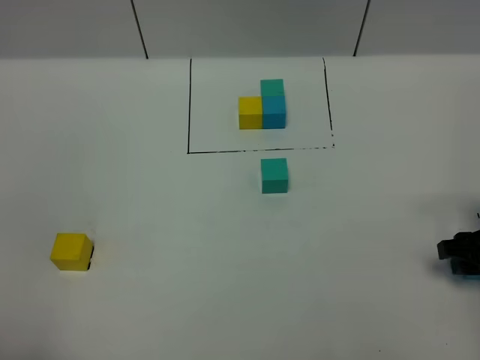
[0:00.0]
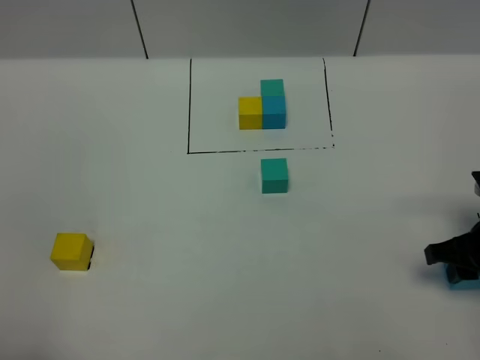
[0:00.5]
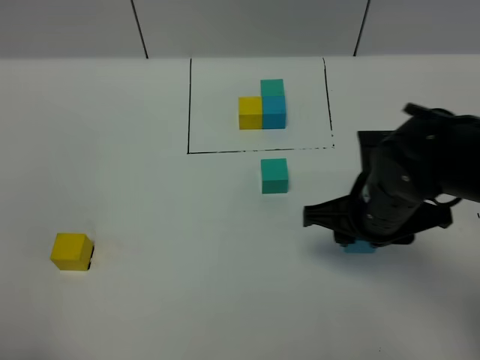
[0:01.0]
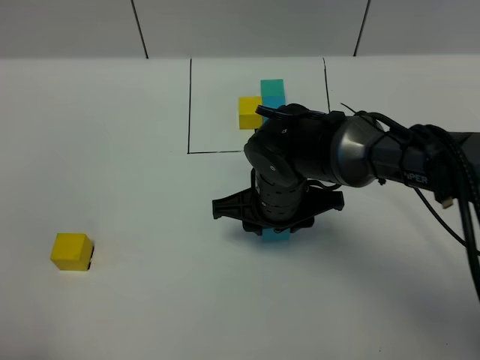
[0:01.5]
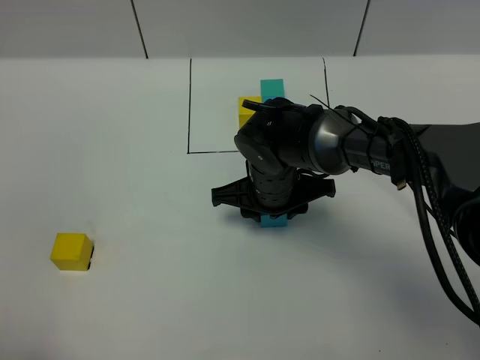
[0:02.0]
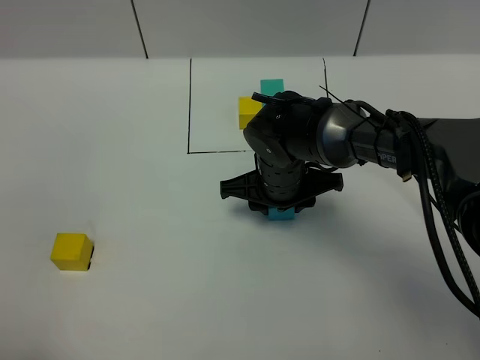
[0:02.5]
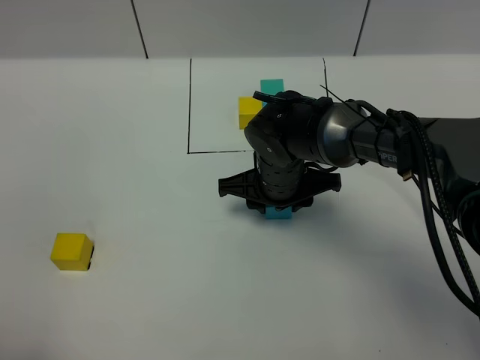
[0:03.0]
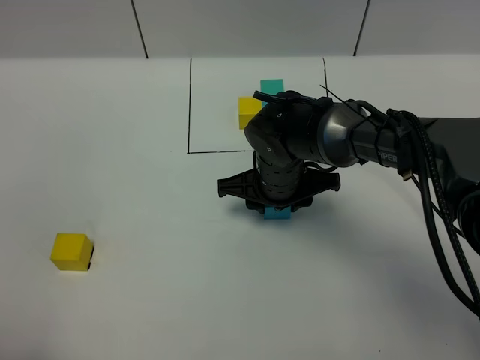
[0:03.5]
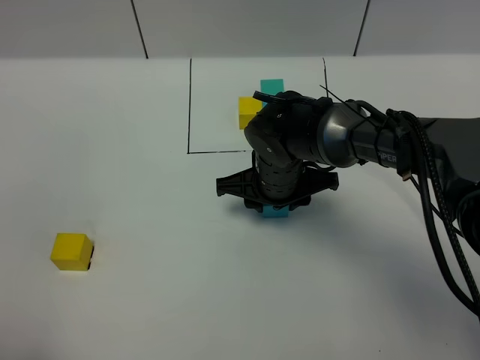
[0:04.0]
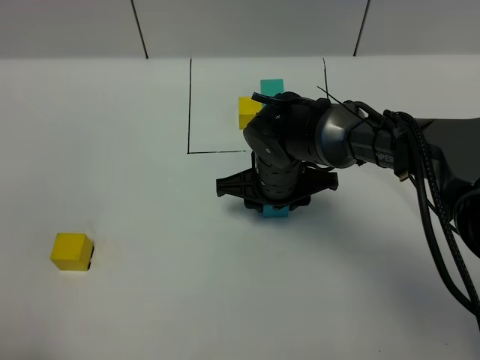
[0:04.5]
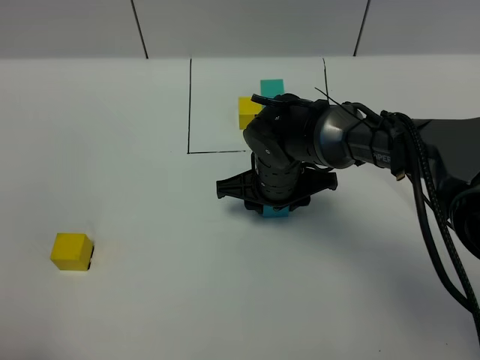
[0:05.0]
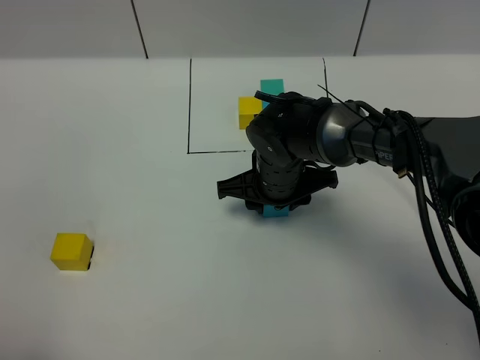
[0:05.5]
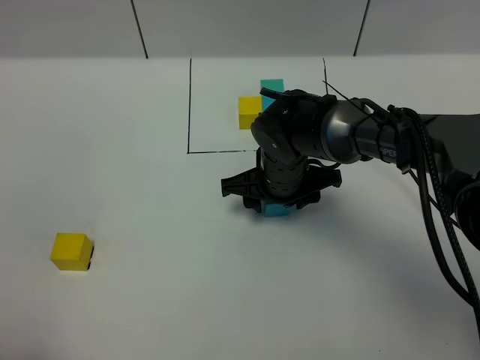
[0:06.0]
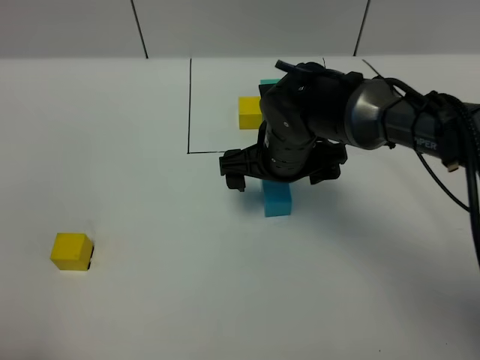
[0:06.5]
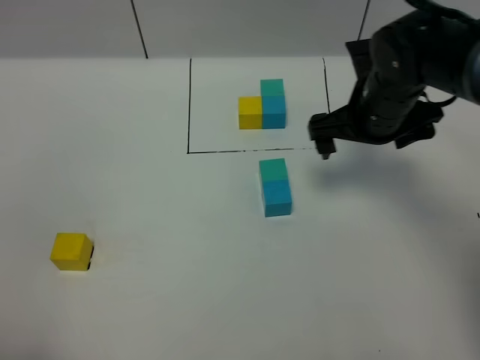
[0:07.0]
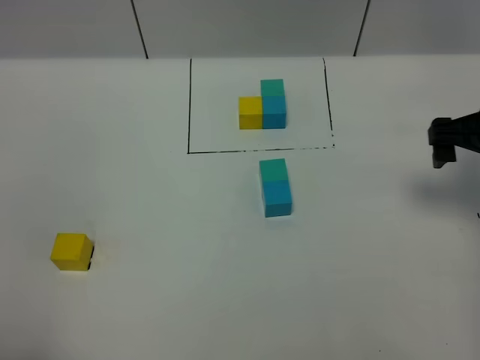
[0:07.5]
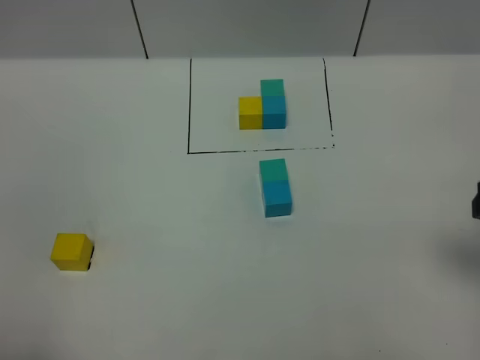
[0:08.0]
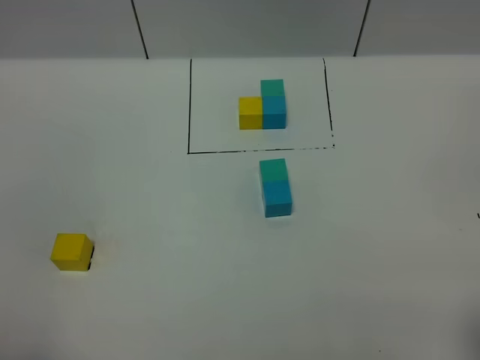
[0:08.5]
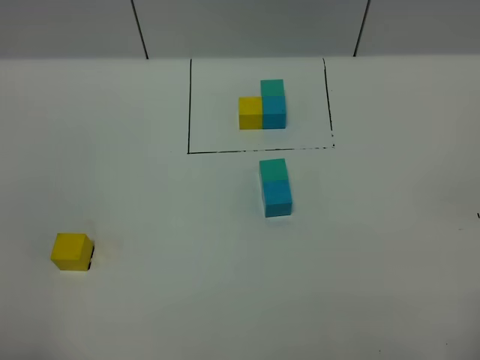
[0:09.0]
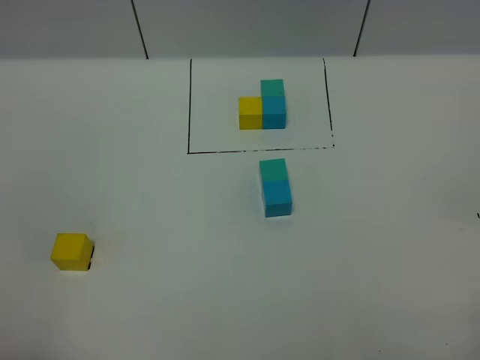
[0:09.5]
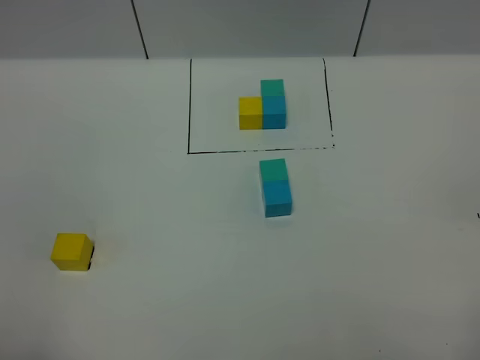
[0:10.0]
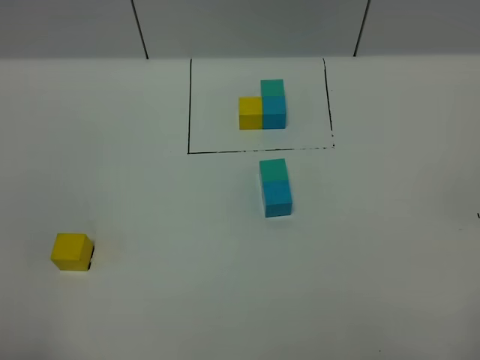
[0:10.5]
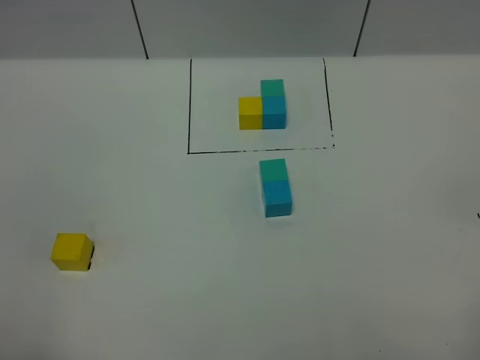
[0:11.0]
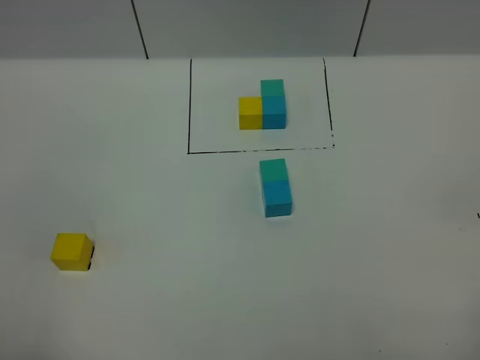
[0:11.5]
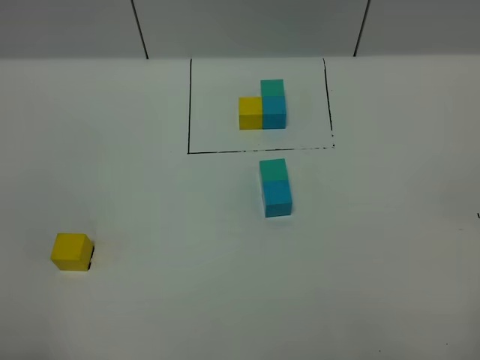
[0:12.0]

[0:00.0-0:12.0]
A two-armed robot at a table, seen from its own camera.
Task of the whole recording: According to the building block template in front, assemble the scattered blocks together.
Step, 0.0 to 6.0 s: Put the blue build block on the behind of the green build block.
0.0 to 2.0 s: The right gripper heads to the left, covering some 30 cm.
2.0 to 4.0 s: The two grippers keep their place.
4.0 to 6.0 s: Both grippers stay put.
6.0 to 8.0 s: The right gripper shifts roughly 35 cm to the right, backward and upward, and opens.
8.0 to 10.0 s: The right gripper travels backward by roughly 20 cm.
10.0 to 12.0 s: The two grippers keep their place.

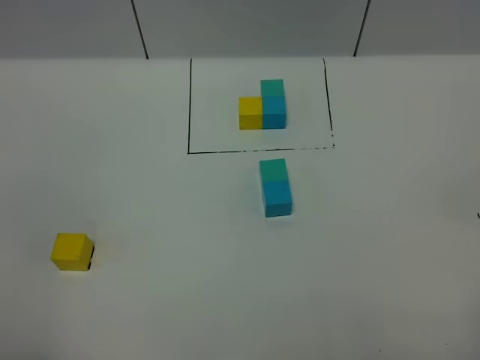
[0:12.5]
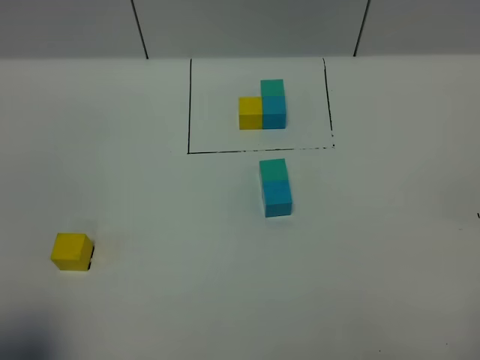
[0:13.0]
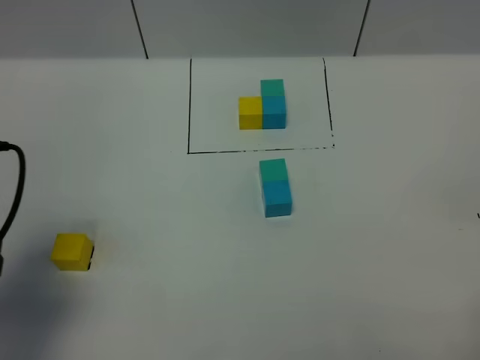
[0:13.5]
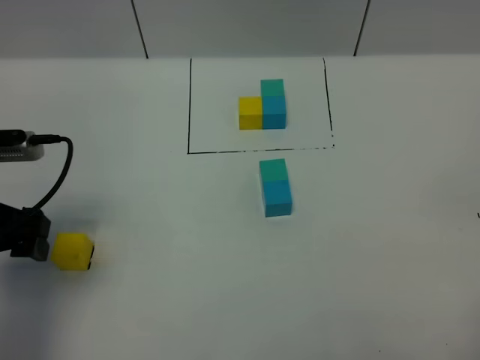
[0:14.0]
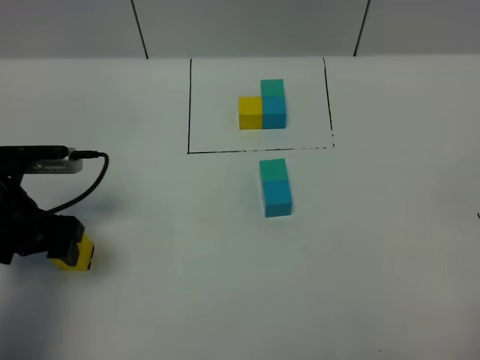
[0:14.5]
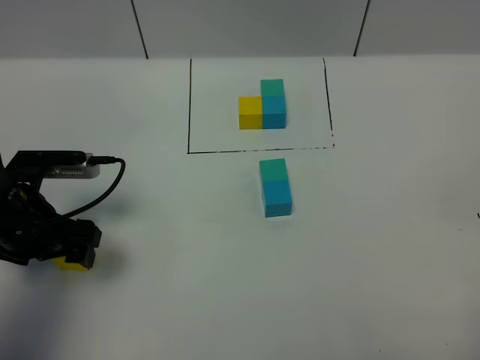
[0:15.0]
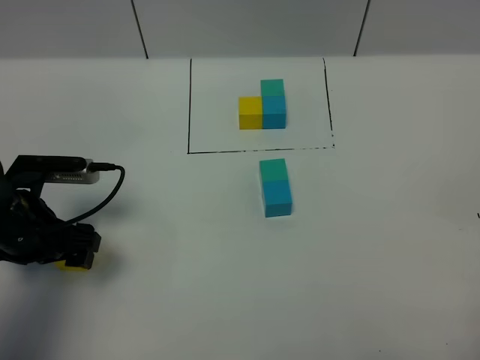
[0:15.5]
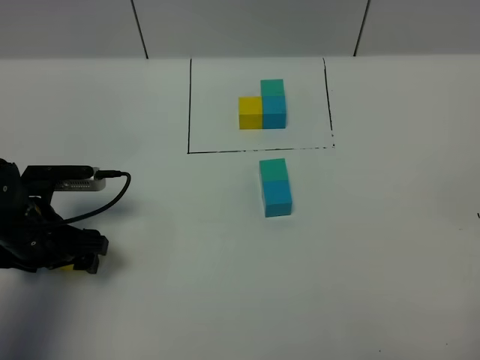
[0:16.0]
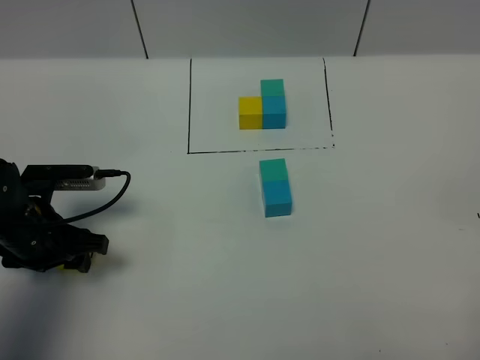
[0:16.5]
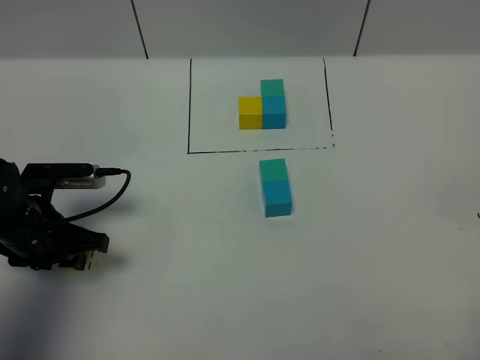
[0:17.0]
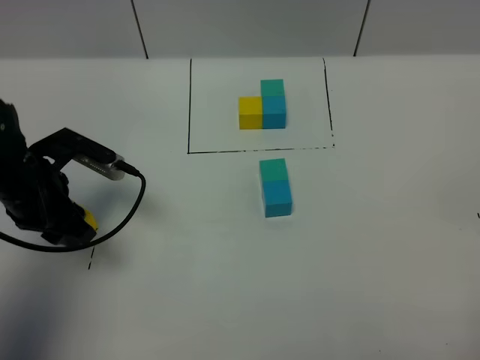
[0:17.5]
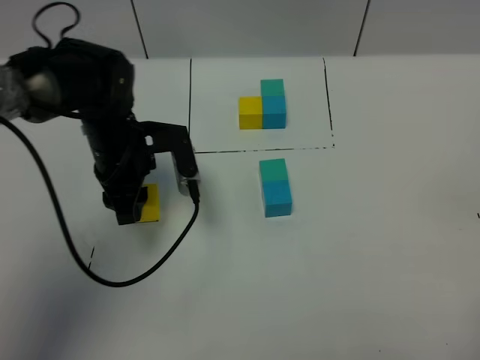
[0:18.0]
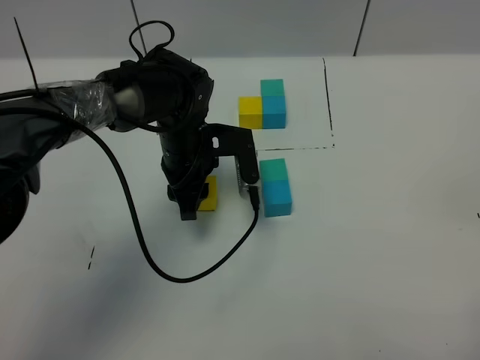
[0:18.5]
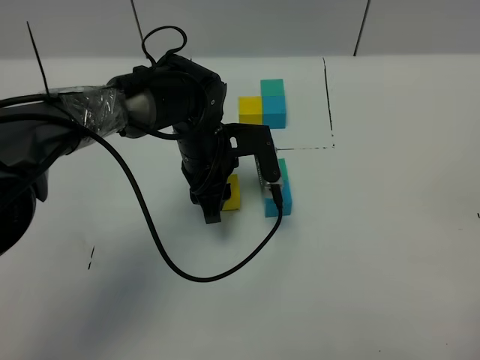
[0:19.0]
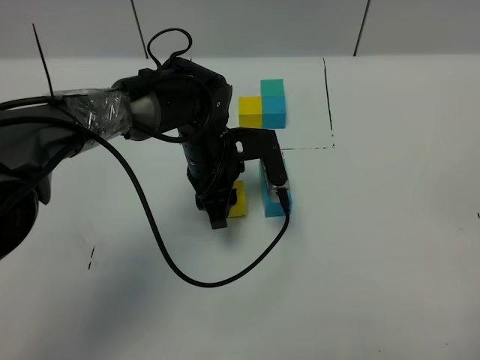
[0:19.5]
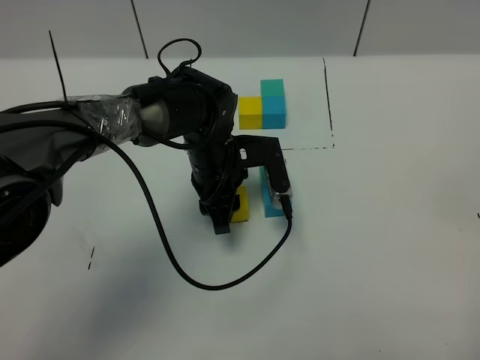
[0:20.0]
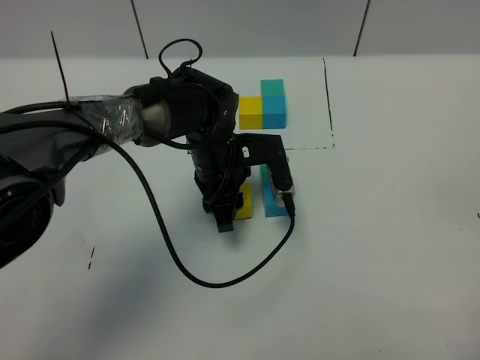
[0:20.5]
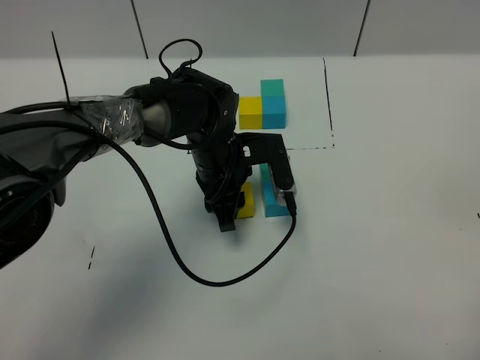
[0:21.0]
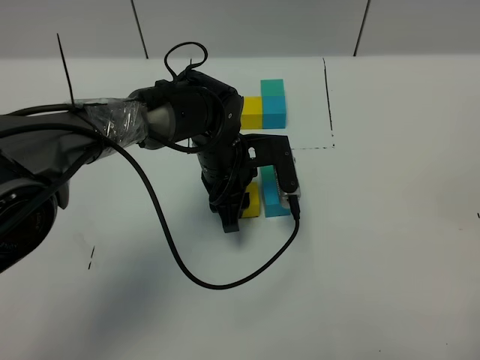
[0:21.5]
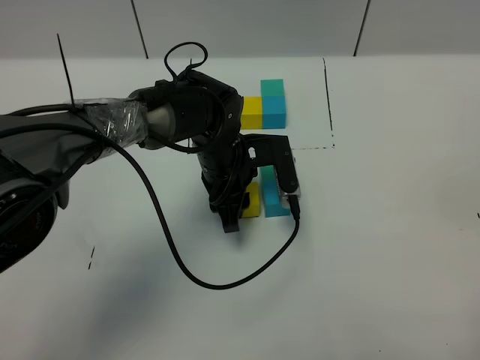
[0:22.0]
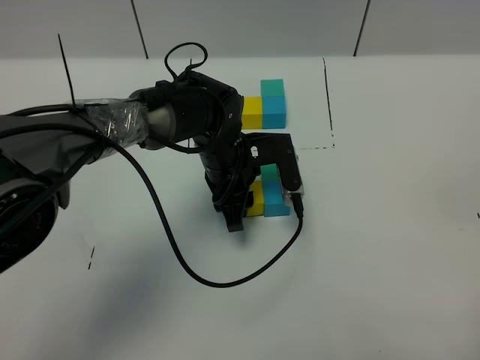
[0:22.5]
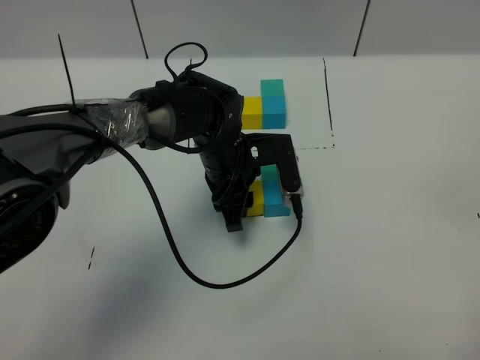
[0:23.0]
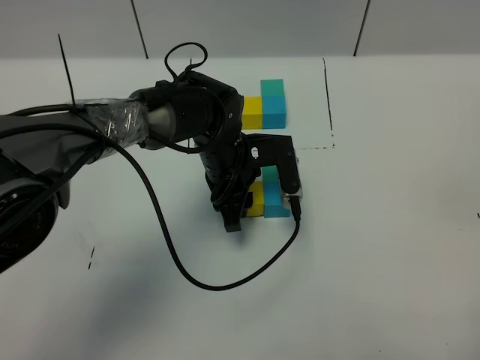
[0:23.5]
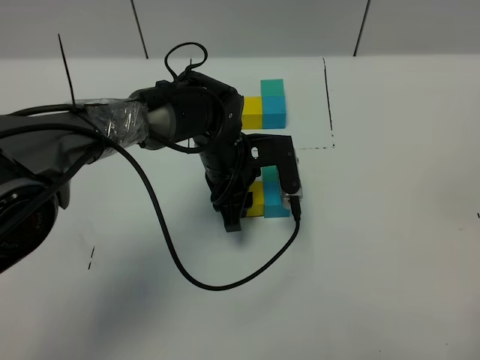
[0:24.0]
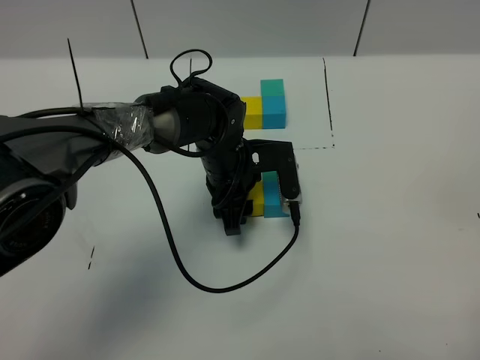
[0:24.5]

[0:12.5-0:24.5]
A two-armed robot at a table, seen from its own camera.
Task of the whole recording: According to the building block template in front, assemble the scattered blocks together.
12.5 to 14.5 s: The left gripper heads forward and downward, covering some 30 cm.
14.5 to 16.5 s: The left gripper closes its fingers.
16.5 to 18.5 s: The left gripper travels to the right and forward by roughly 20 cm.
18.5 to 20.5 s: The grippers make only small movements.
20.5 to 22.5 s: Neither gripper changes place.
22.5 to 24.5 s: Neither gripper changes place.

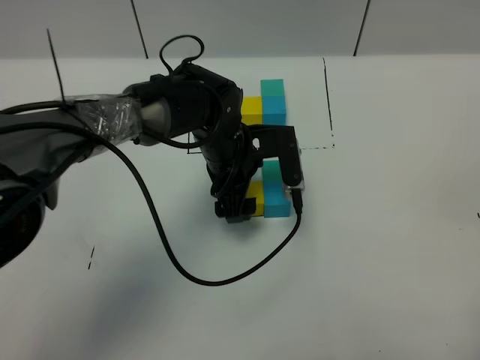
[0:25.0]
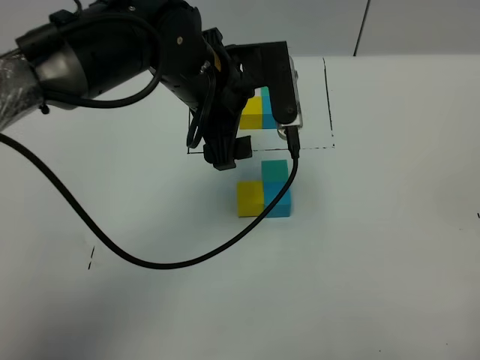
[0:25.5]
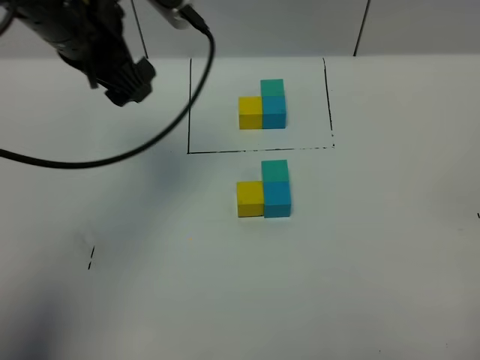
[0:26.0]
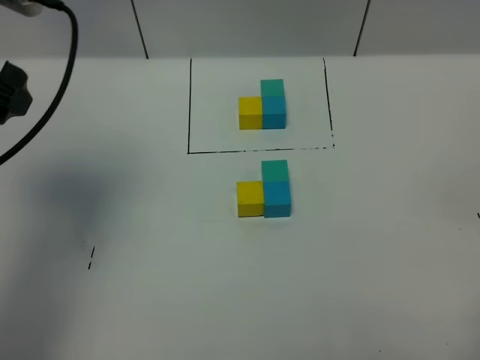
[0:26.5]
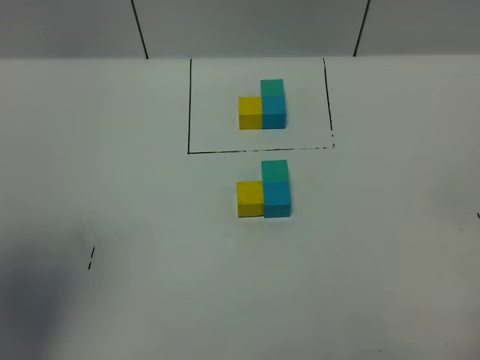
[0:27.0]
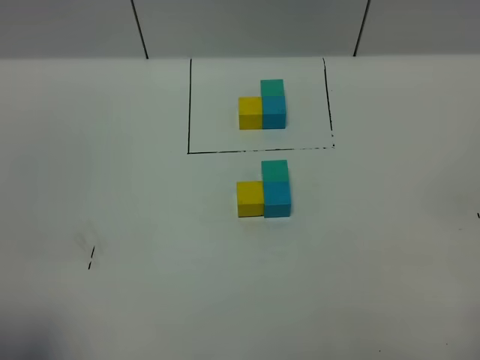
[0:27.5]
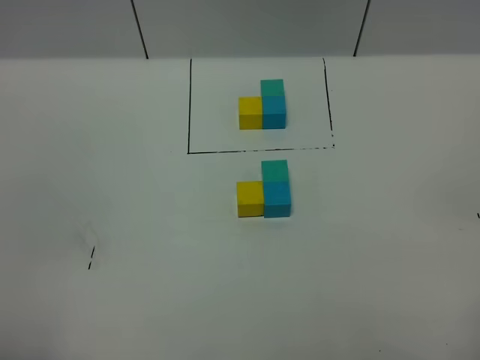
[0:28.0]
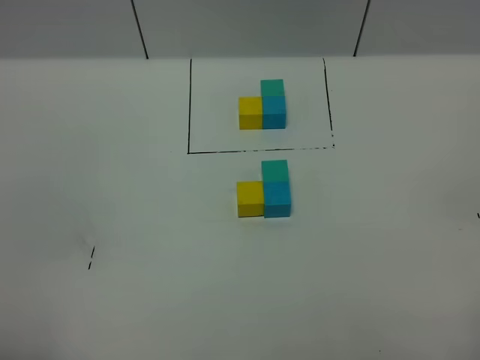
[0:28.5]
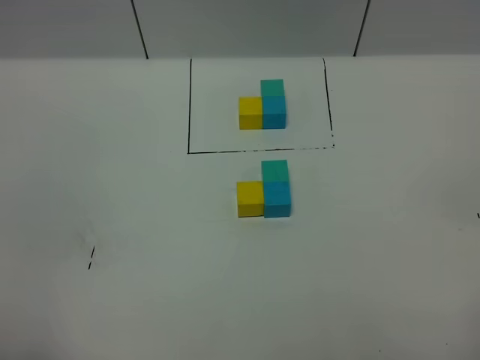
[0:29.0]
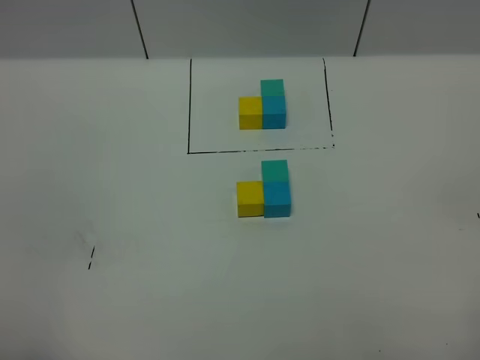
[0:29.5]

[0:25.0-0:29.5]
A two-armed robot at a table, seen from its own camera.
Task of the whole recording: According to the building block template in front, assemble the scattered blocks together.
25.0 to 27.0 s: The left gripper moves to the left, upward and backward, roughly 40 cm.
27.0 to 29.5 s: The left gripper shifts about 20 cm backward and downward, and closes its fingers.
